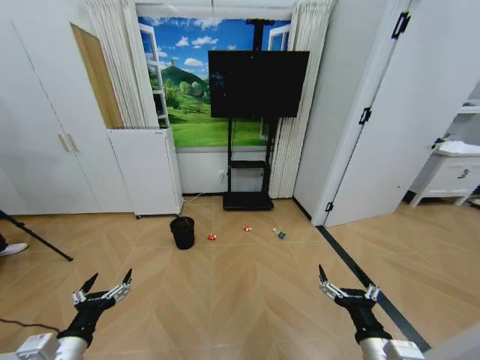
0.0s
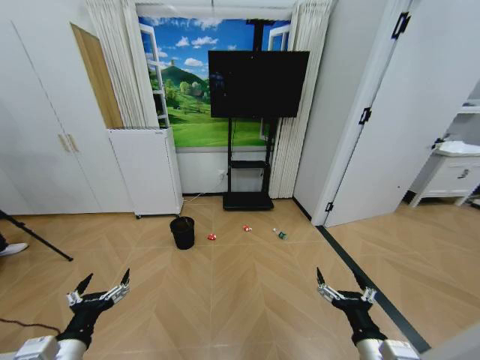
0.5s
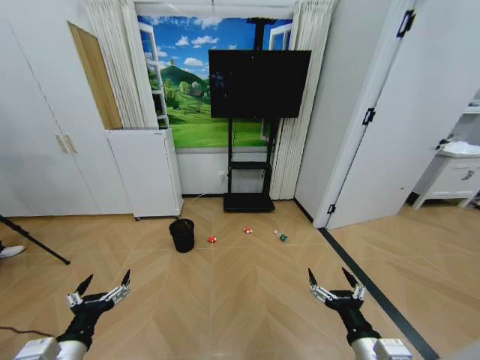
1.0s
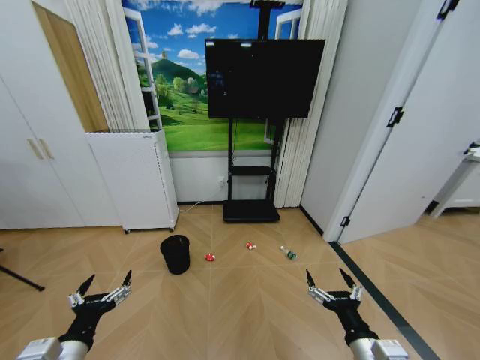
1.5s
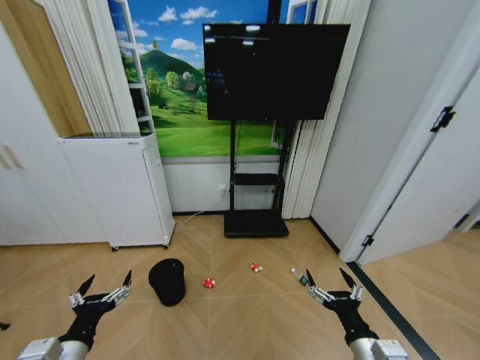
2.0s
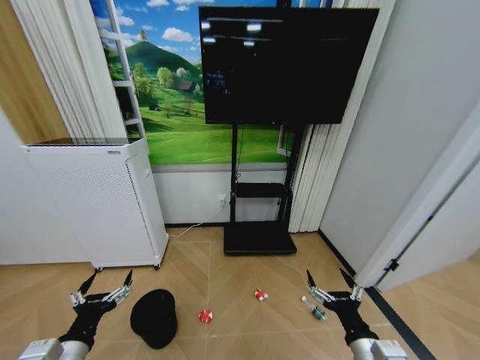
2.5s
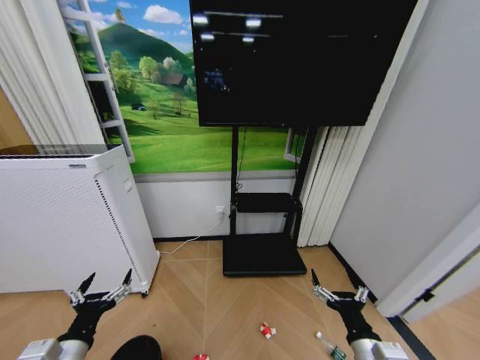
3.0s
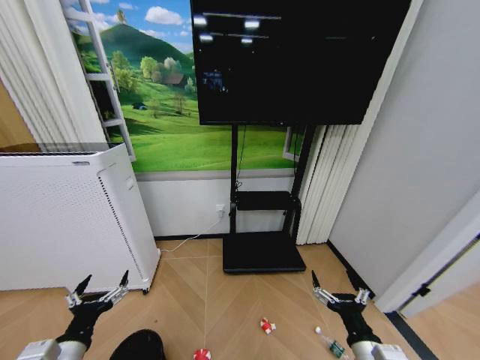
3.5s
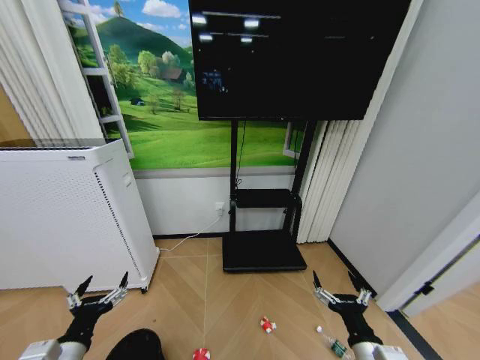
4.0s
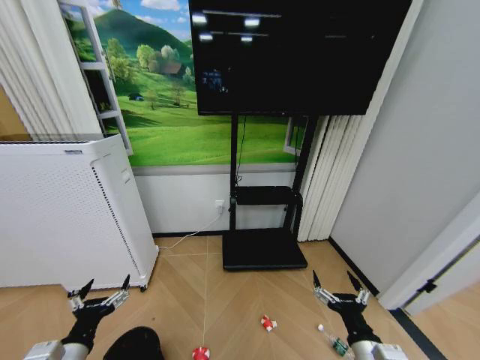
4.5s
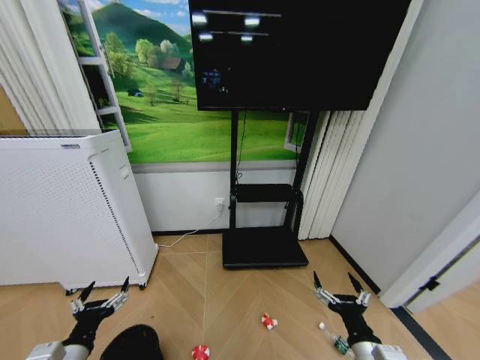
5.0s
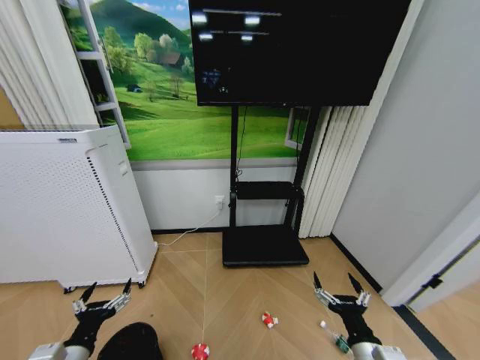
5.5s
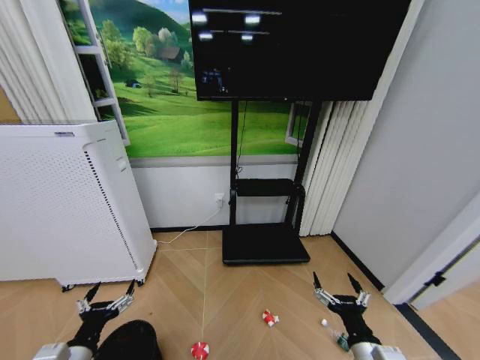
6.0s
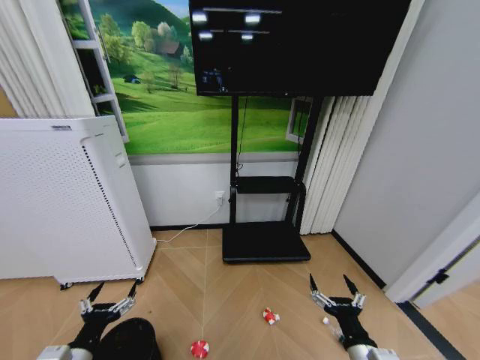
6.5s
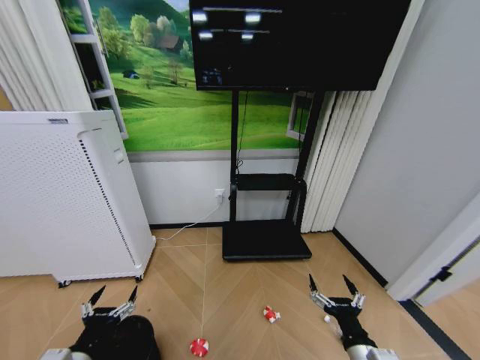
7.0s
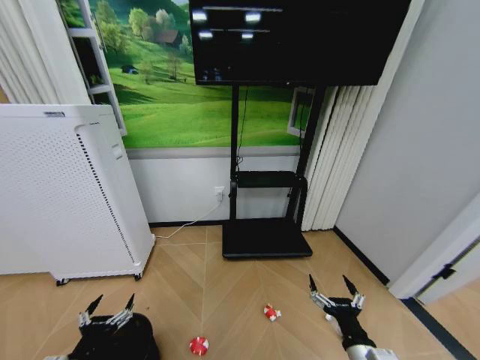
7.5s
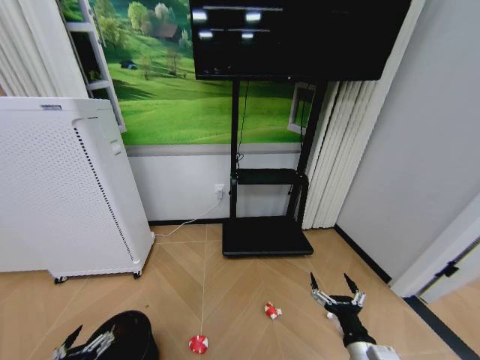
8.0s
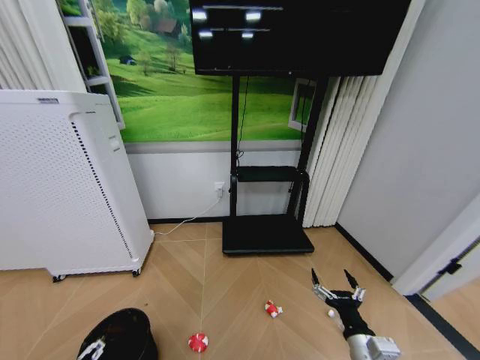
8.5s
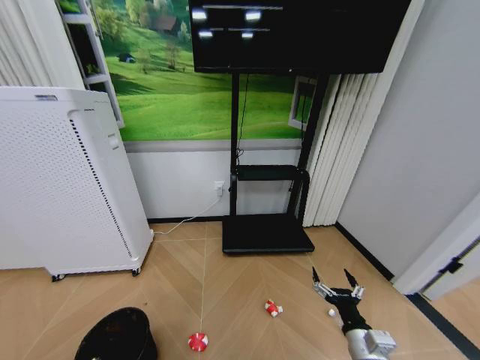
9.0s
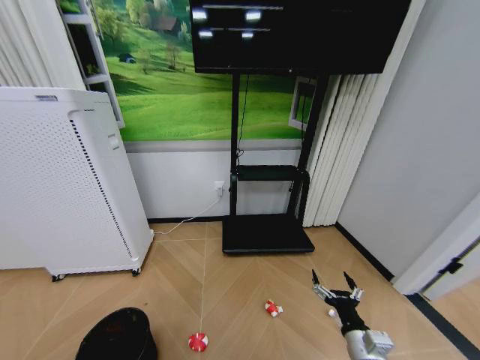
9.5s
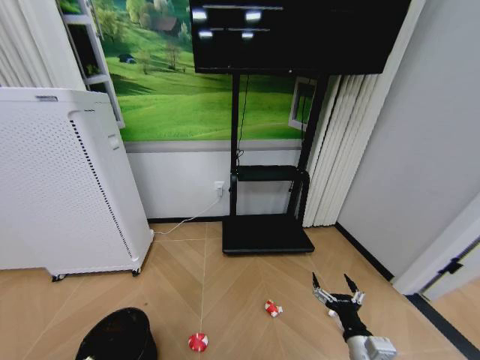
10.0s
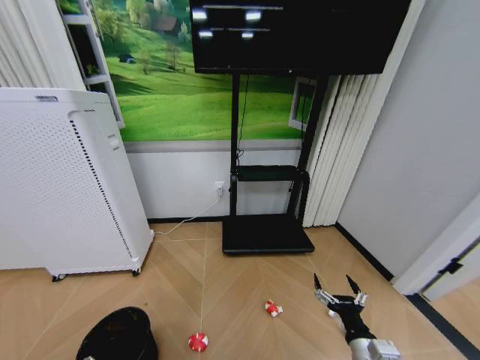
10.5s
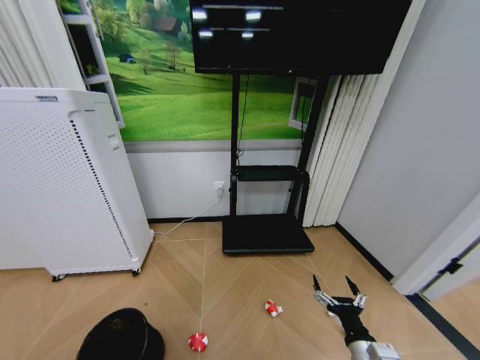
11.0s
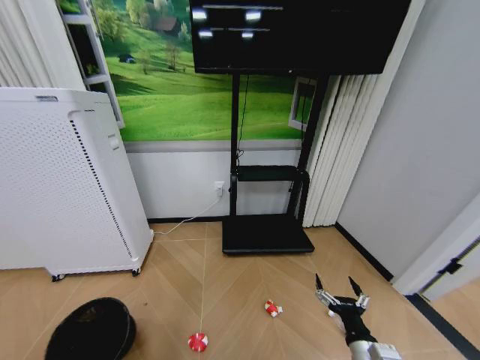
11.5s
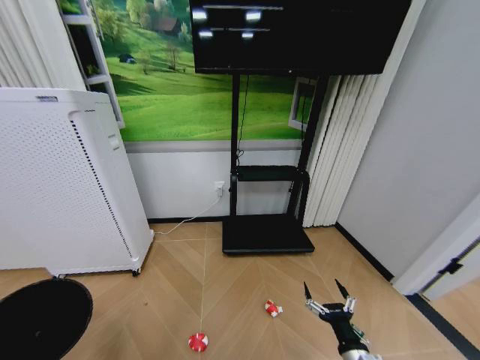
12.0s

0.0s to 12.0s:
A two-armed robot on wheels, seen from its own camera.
Task of the whole recording: Pick up the trash bin and place the garbage on the floor into it.
6.0s to 8.0s: The left gripper shifts approximately 5 cm backward.
8.0s to 10.0s: The left gripper is displaced to the left by roughly 5 cm, and travels upward and back again, some 10 cm each way.
10.0s to 12.0s: The left gripper travels upward and to the left by some 10 cm, and closes its fingers.

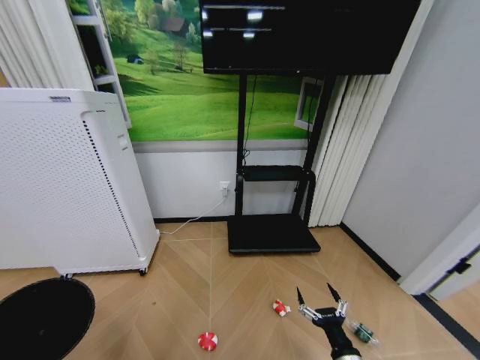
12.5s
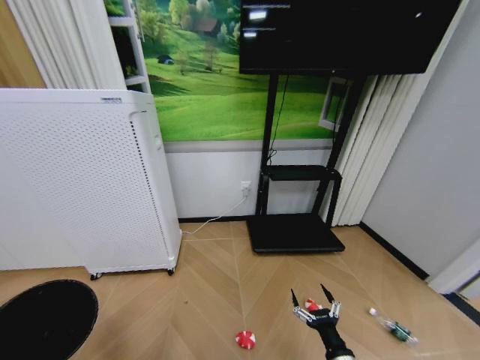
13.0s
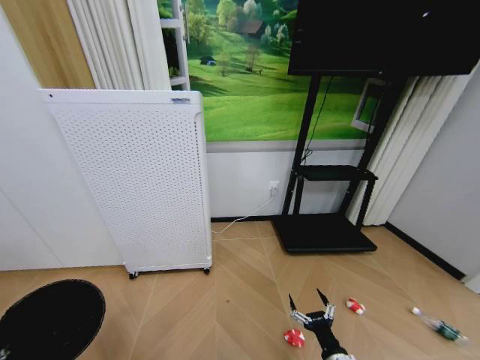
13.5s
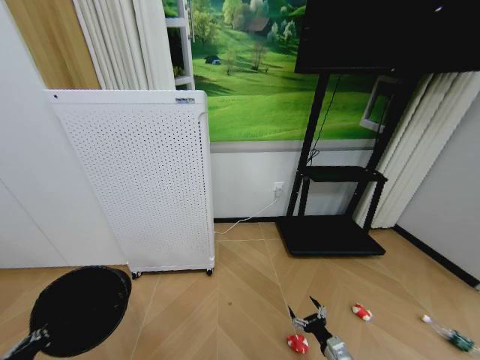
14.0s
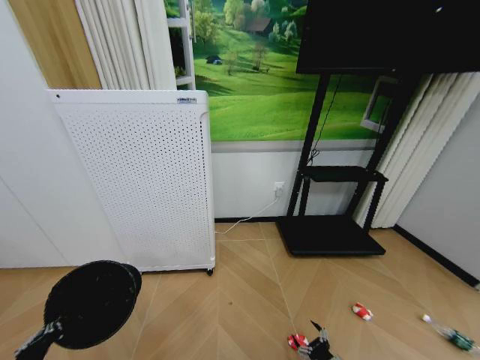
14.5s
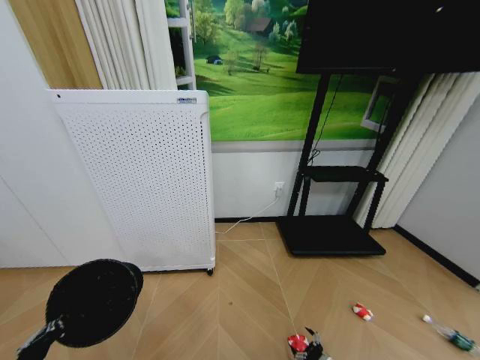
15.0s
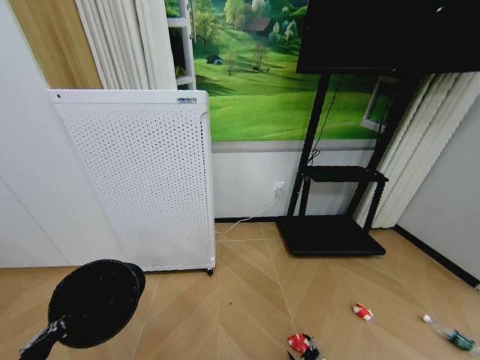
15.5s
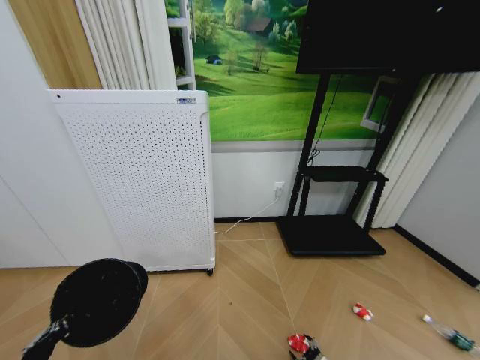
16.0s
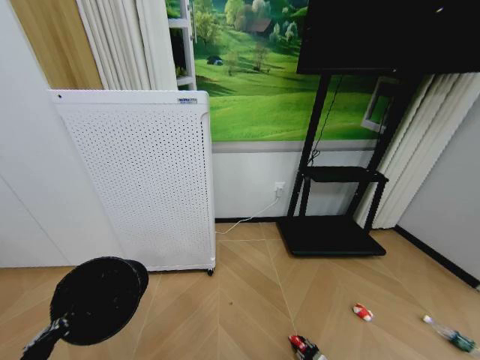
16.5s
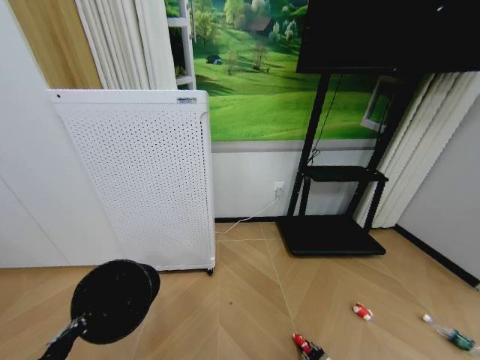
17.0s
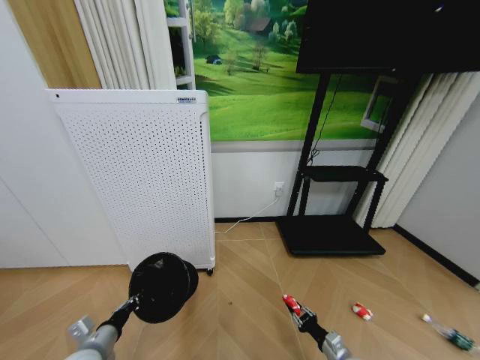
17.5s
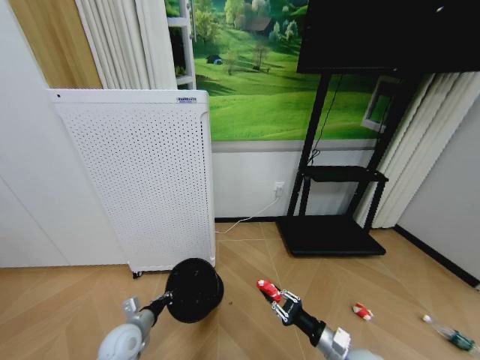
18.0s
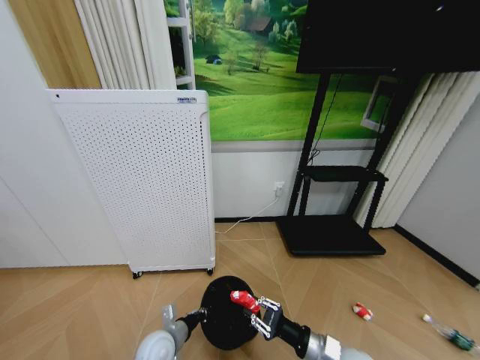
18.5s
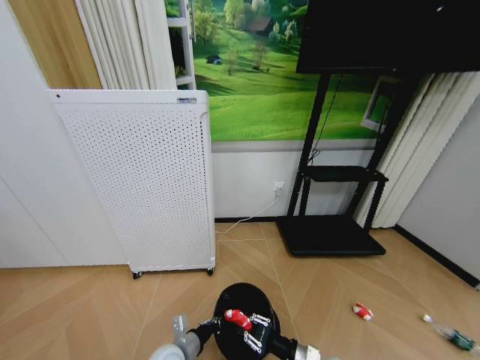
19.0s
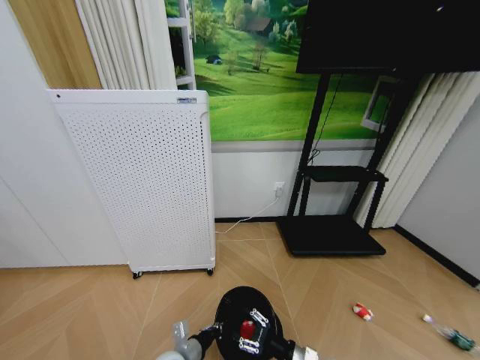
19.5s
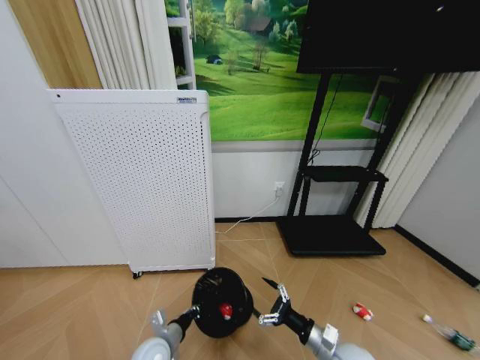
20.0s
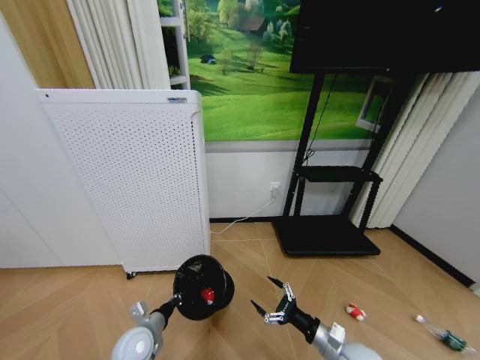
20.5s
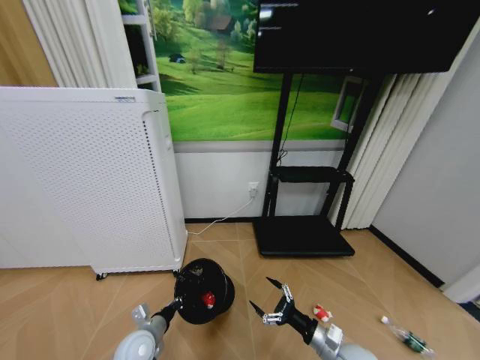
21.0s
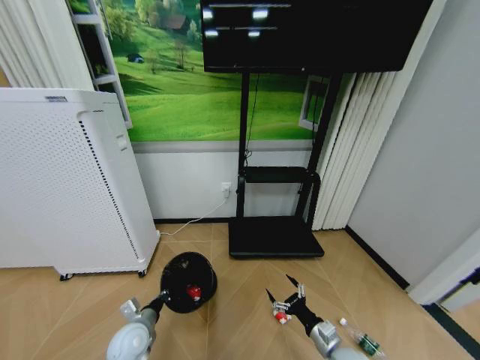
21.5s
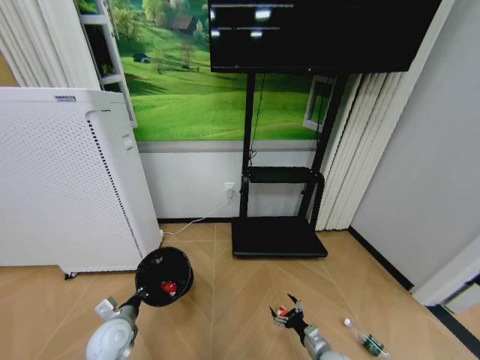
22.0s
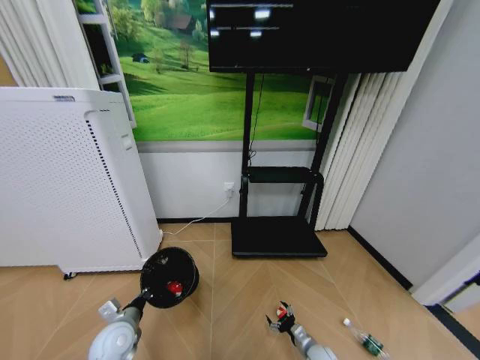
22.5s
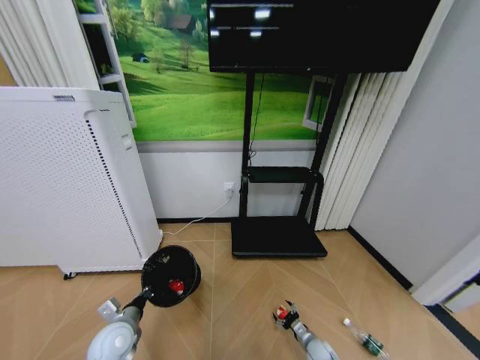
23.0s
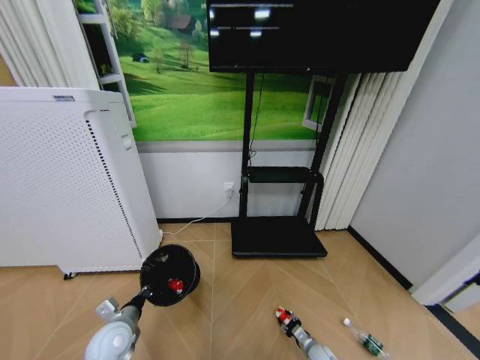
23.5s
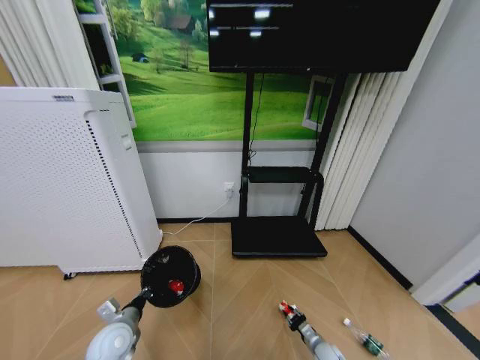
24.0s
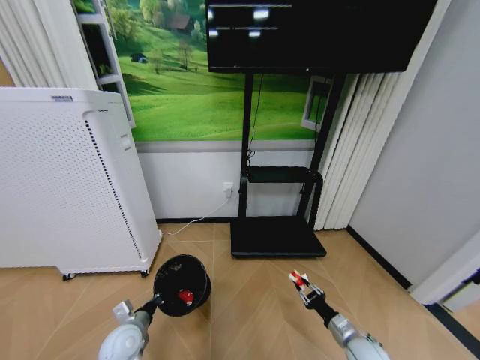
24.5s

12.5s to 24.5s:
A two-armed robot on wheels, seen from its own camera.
Task of the whole recording: Pick up the trash bin and place the garbage on the floor into it.
12.5s to 14.5s: The right gripper goes some 20 cm downward and to the right. Meanwhile the left gripper moves to the right, about 5 cm.
14.5s to 16.5s: The right gripper is displaced downward by about 10 cm, and closes up.
16.5s to 18.5s: The right gripper shifts about 30 cm upward and to the left; the left gripper is displaced to the right, forward and downward by roughly 30 cm.
18.5s to 20.5s: The left gripper travels to the left by roughly 5 cm, while the right gripper ends up approximately 5 cm from where it was, and opens up.
20.5s to 22.5s: The right gripper is displaced downward by about 20 cm; the left gripper is displaced to the left by approximately 5 cm.
22.5s to 24.5s: The right gripper is displaced upward and to the right by roughly 15 cm, and closes its fingers.

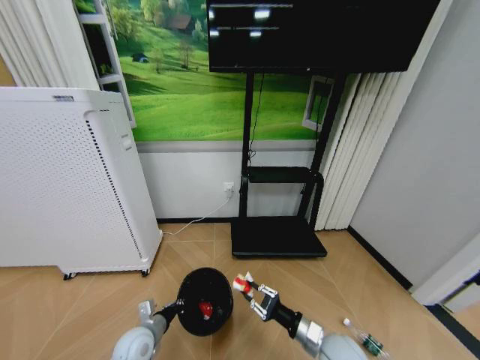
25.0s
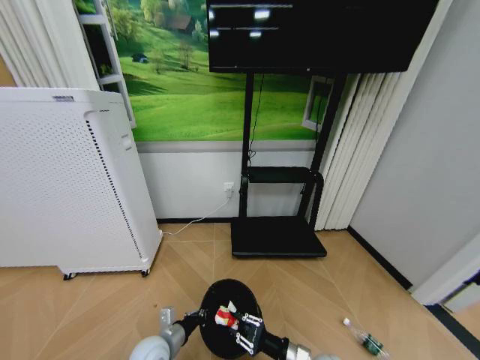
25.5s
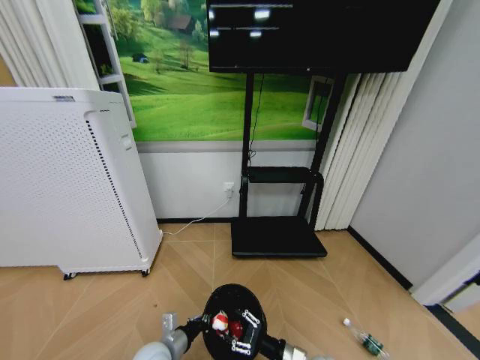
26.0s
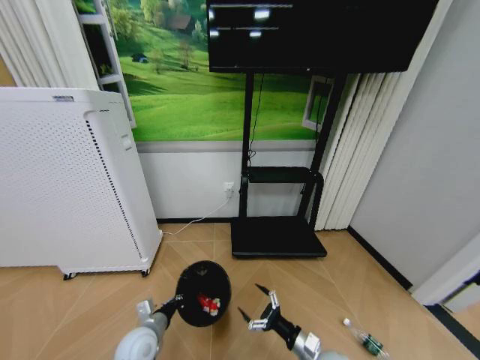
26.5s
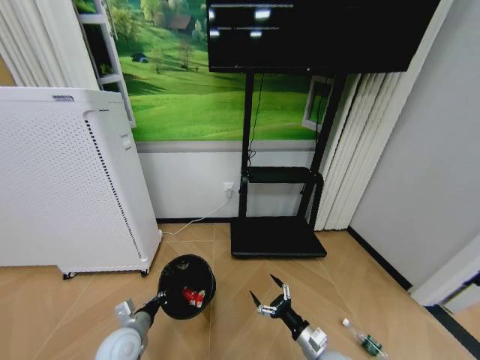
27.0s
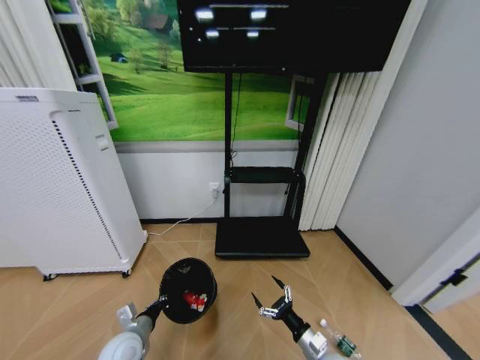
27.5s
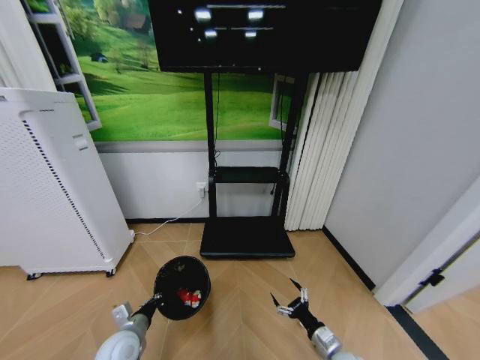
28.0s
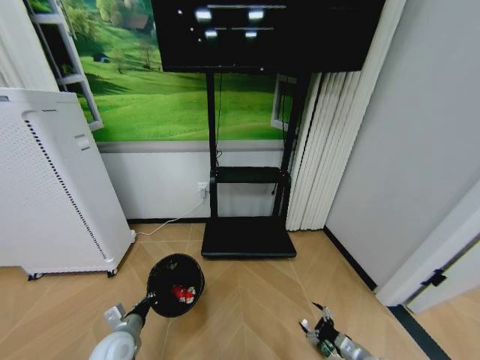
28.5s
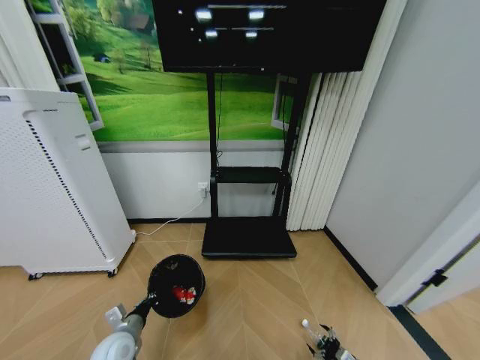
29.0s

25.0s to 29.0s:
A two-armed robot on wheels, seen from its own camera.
Task of the whole recording: Pick up the trash bin and place the garbage on the floor into it.
25.0s to 27.0s: The left gripper reaches some 5 cm to the right, then returns; the right gripper shifts roughly 5 cm downward, and opens.
27.0s to 29.0s: The right gripper is displaced to the right and downward by some 20 cm.
